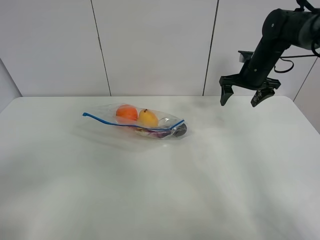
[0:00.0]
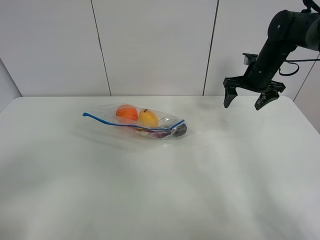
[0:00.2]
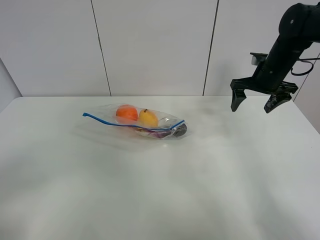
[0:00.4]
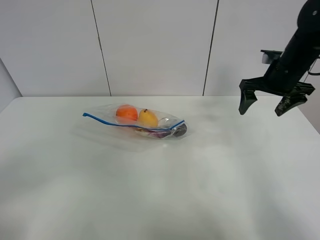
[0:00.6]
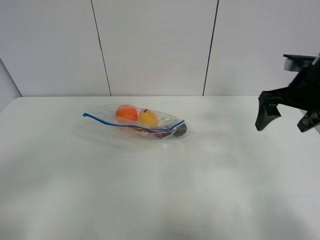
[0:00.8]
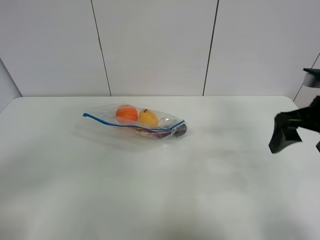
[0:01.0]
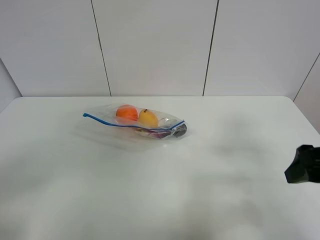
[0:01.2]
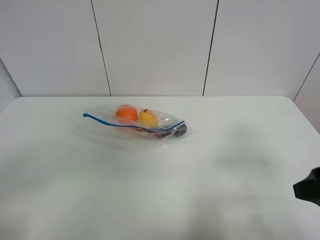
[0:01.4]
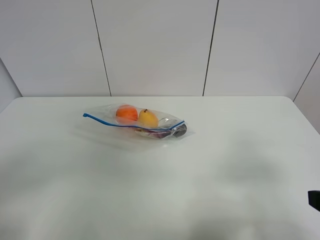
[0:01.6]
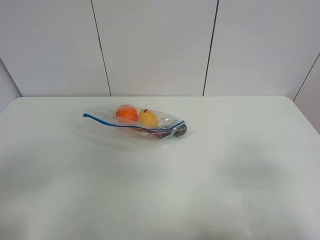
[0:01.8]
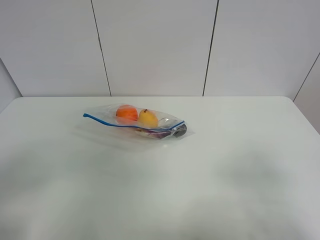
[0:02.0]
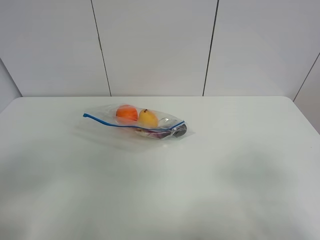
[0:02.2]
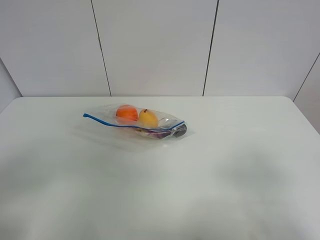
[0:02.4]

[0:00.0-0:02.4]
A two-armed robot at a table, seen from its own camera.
0.0 to 1.2 s: The right gripper travels backward by roughly 30 cm.
1.2 to 2.4 s: The right gripper is displaced backward by some 15 cm.

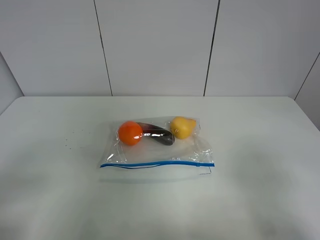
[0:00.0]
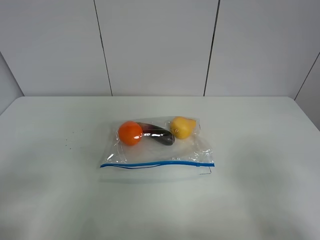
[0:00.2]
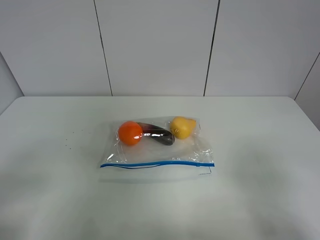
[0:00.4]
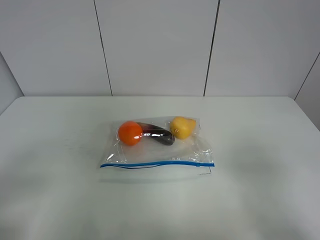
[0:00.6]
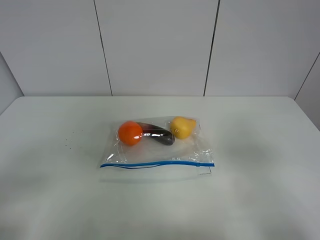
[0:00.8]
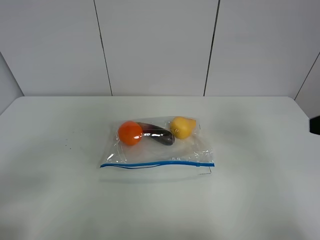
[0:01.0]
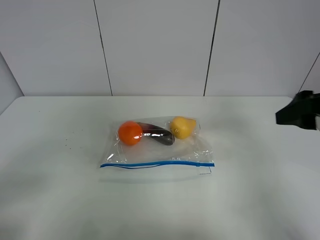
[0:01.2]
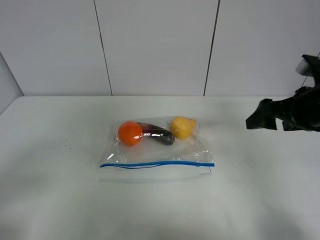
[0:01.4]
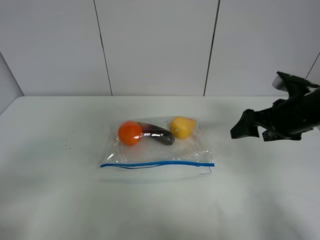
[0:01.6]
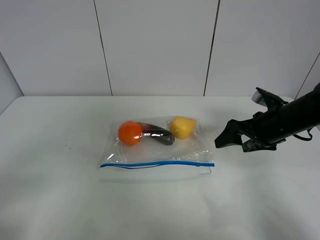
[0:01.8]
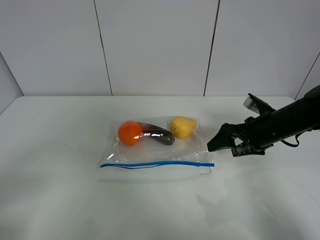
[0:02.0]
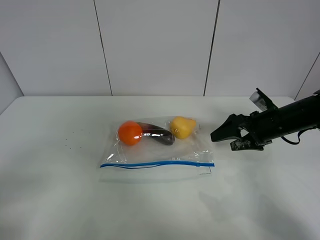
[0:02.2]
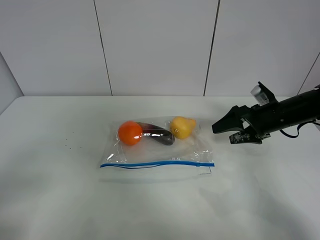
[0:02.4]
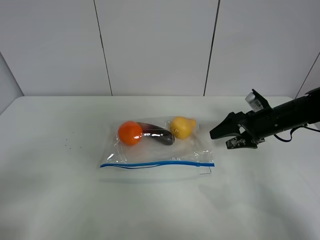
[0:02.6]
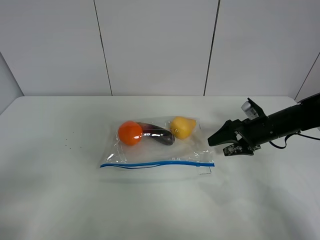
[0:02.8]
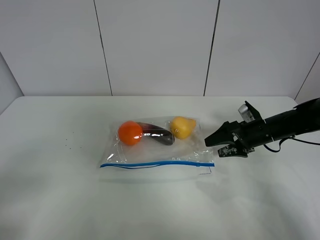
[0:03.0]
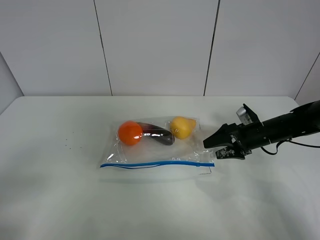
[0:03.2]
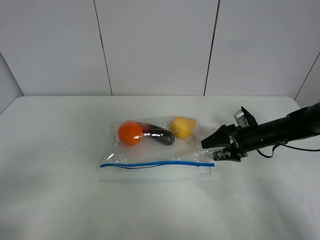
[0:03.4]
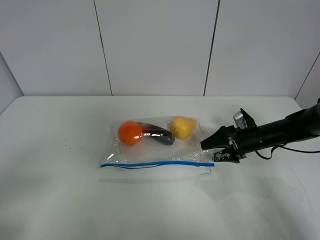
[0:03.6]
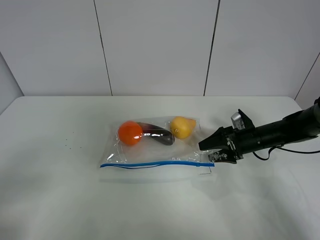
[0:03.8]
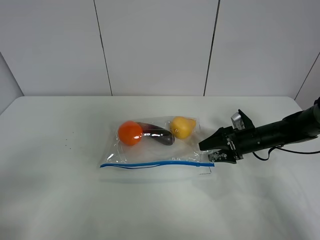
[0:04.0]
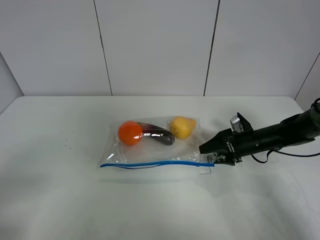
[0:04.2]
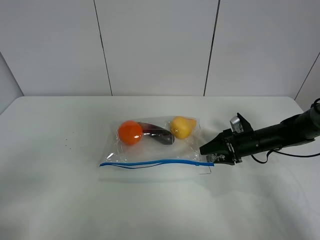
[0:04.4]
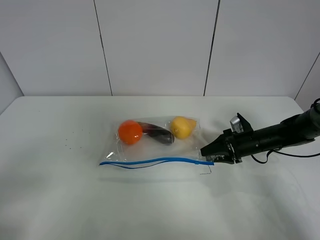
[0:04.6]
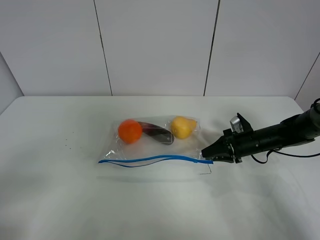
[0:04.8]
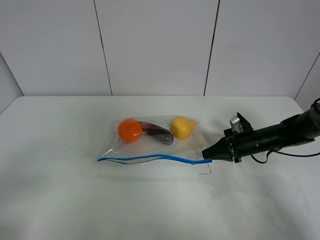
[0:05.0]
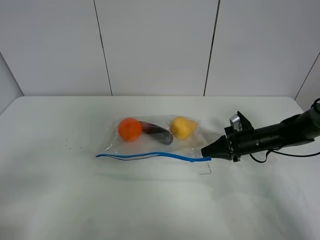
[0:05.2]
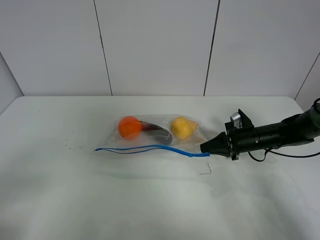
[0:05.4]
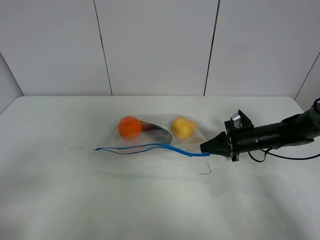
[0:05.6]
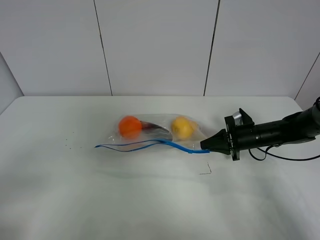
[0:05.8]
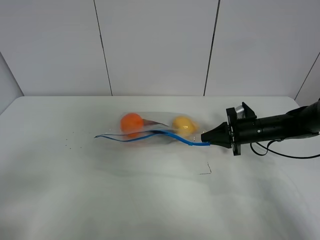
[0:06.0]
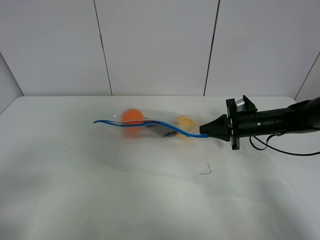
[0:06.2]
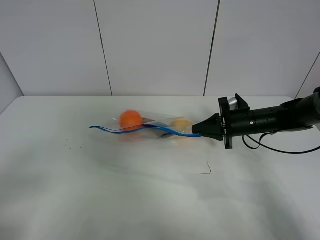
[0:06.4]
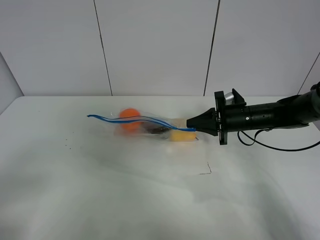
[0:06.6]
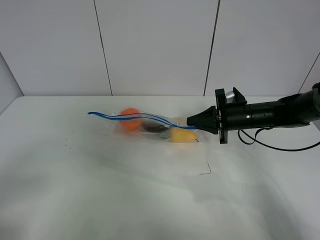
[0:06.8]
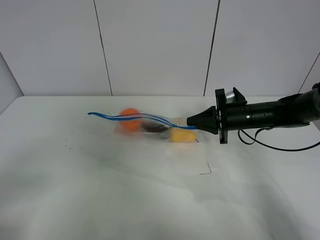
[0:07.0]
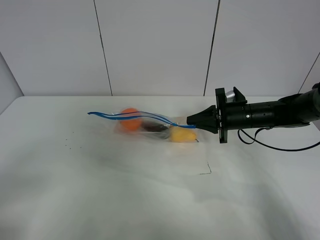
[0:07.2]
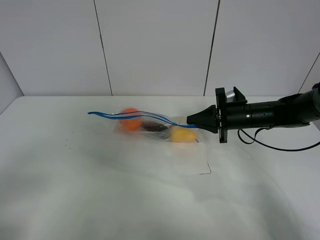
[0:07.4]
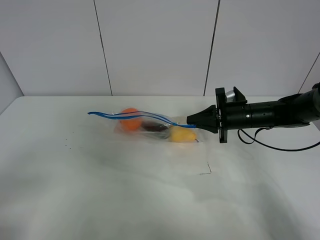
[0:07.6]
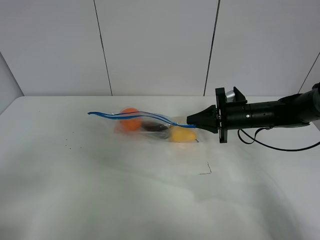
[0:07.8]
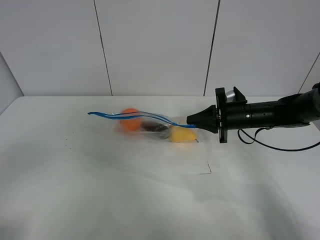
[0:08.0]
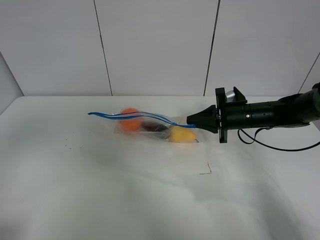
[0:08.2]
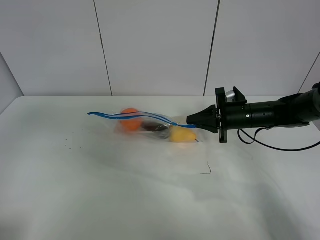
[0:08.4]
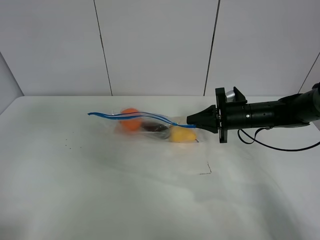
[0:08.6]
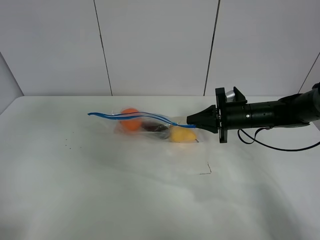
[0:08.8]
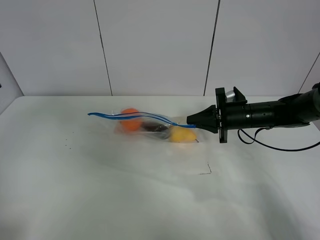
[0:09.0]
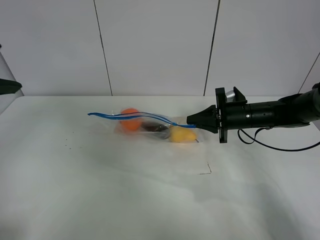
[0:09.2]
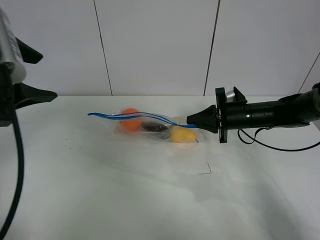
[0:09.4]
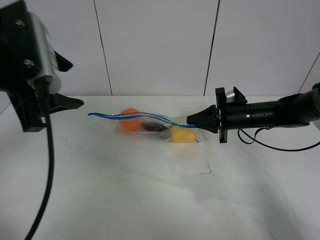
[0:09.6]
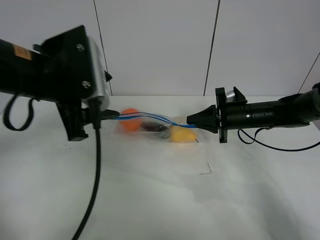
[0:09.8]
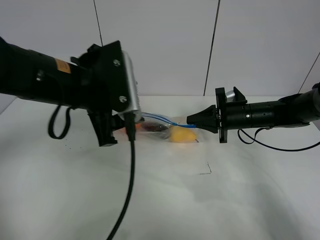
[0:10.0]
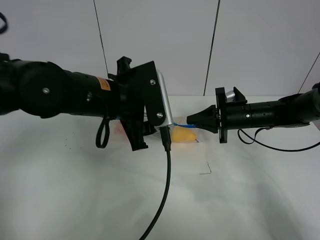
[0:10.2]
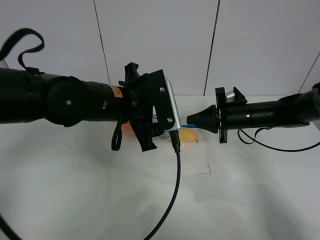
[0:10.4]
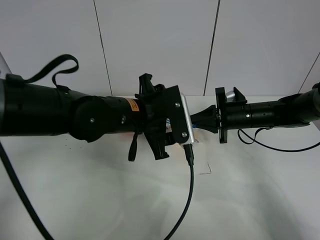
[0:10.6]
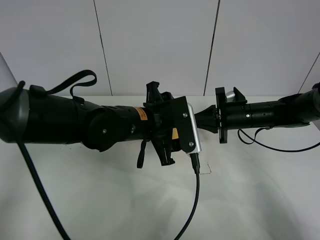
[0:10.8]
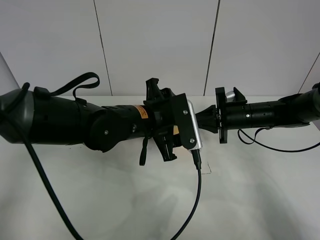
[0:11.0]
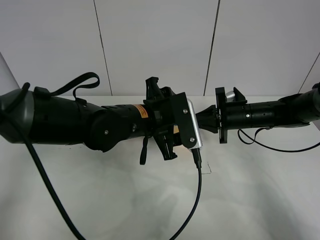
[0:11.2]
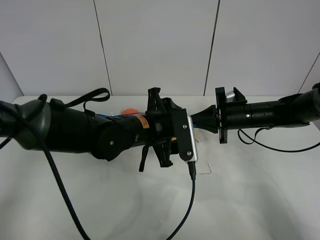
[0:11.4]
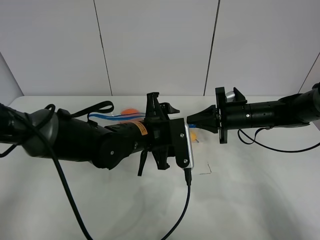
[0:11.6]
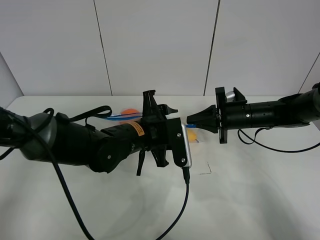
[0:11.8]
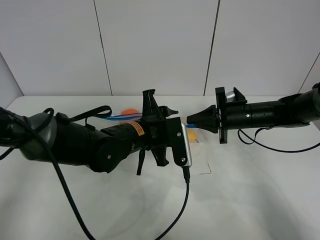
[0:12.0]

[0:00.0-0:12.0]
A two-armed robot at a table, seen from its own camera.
Step, 0.0 to 4.8 s: Grasp the fruit bag with right gripper.
Step, 5.0 to 6.8 s: Lift the fruit bag with your right gripper.
0.0 to 1.6 s: The right gripper shifts approximately 25 cm forward.
1.6 to 3.0 s: The right gripper shifts about 15 cm downward and forward.
3.0 to 4.4 s: The grippers stay close to where they were, moving slightly.
4.4 to 6.0 s: The right gripper closes.
6.0 to 7.6 s: The right gripper moves about 5 cm.
7.6 to 9.0 s: The left gripper is displaced forward and upward by about 20 cm.
9.0 to 10.4 s: The left gripper shifts roughly 25 cm to the right and downward.
10.4 to 12.0 s: The left gripper goes roughly 10 cm downward, and closes up.

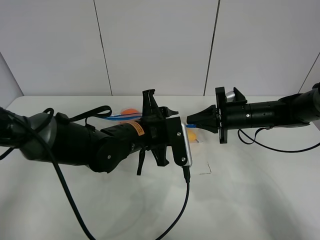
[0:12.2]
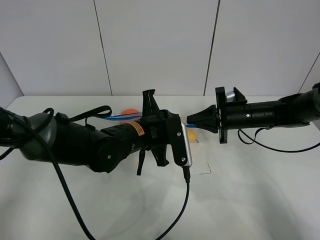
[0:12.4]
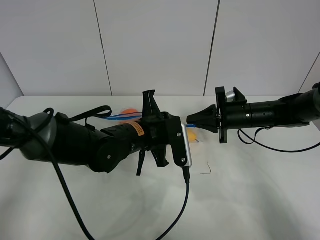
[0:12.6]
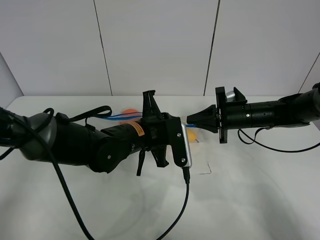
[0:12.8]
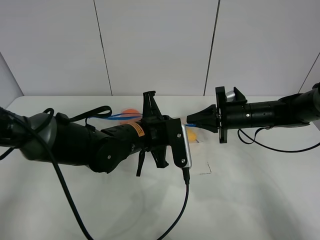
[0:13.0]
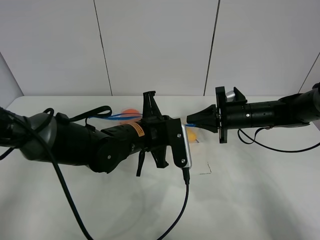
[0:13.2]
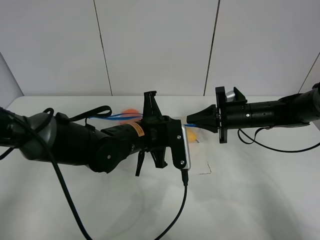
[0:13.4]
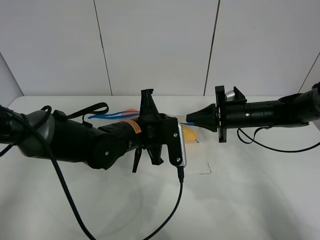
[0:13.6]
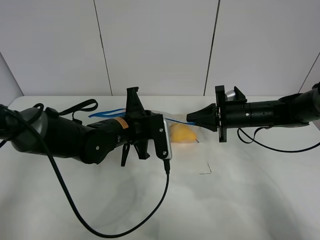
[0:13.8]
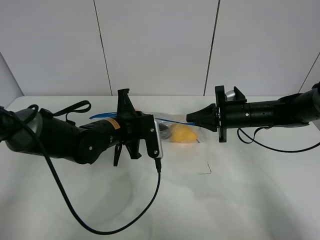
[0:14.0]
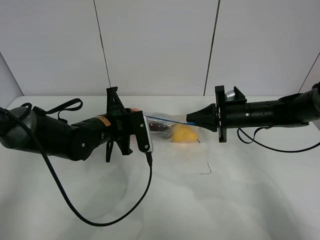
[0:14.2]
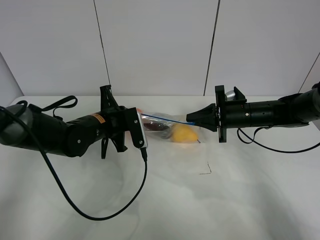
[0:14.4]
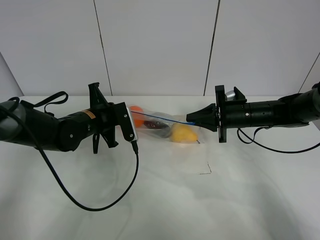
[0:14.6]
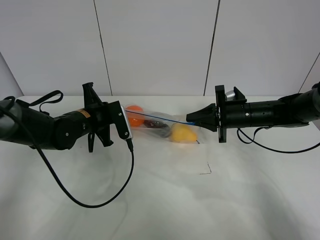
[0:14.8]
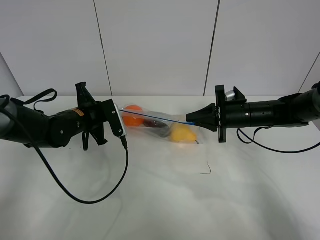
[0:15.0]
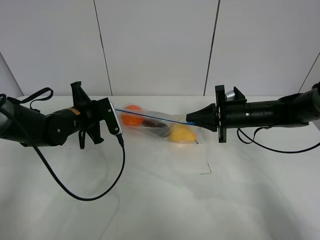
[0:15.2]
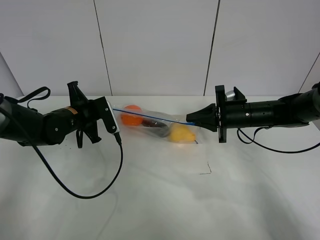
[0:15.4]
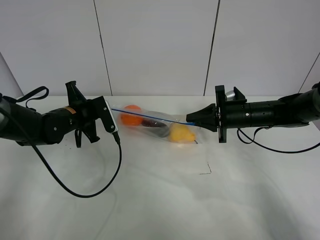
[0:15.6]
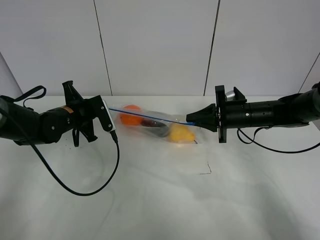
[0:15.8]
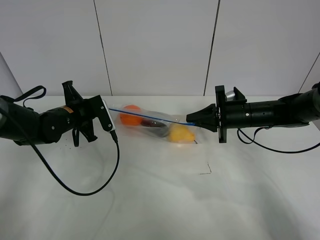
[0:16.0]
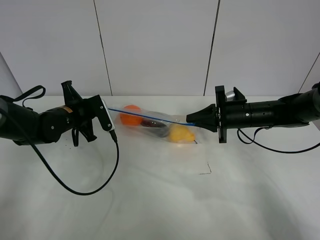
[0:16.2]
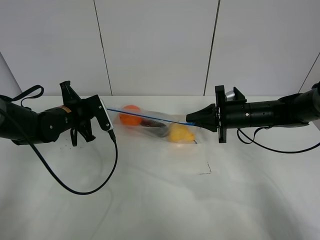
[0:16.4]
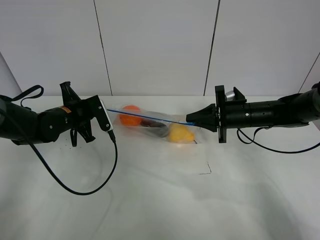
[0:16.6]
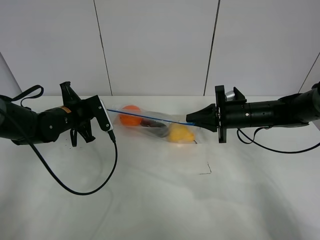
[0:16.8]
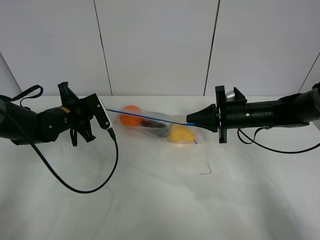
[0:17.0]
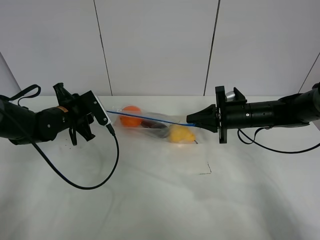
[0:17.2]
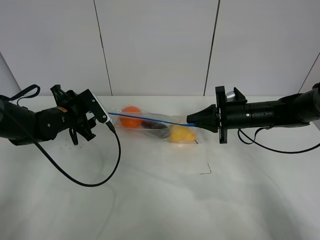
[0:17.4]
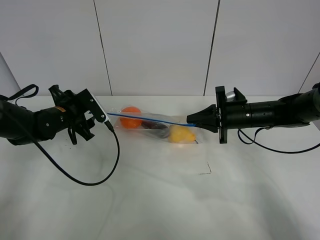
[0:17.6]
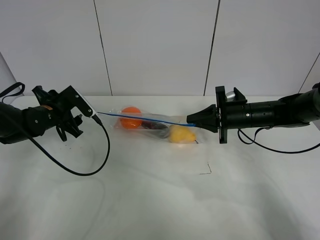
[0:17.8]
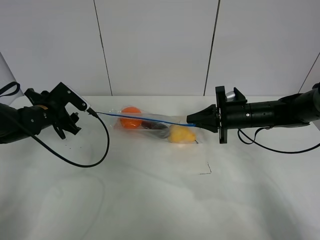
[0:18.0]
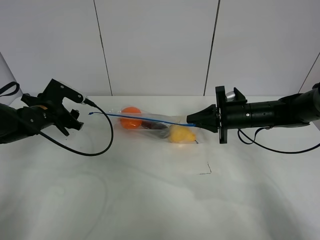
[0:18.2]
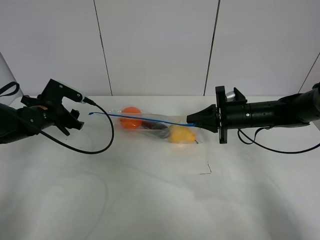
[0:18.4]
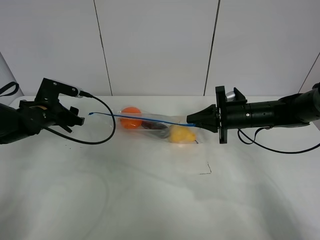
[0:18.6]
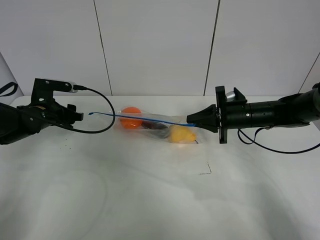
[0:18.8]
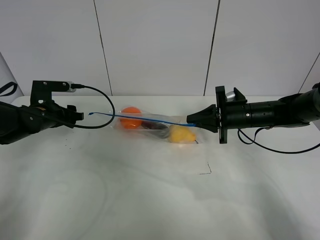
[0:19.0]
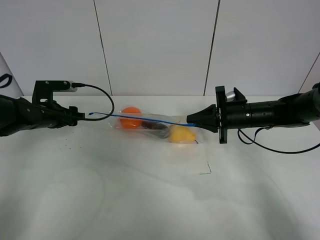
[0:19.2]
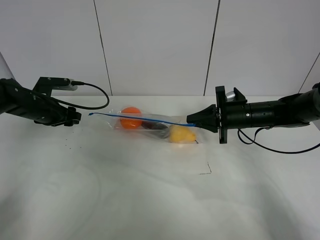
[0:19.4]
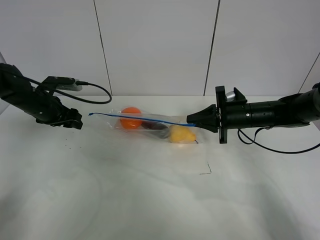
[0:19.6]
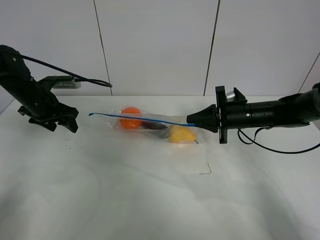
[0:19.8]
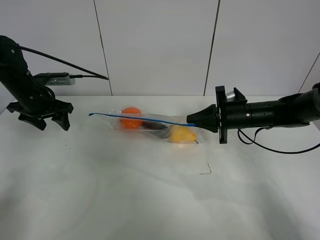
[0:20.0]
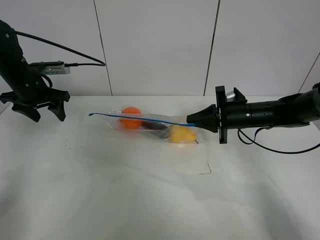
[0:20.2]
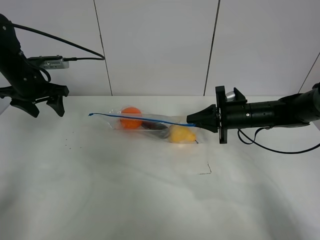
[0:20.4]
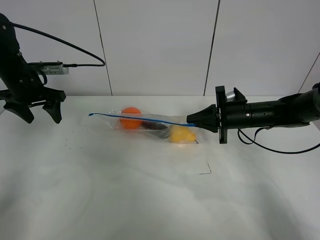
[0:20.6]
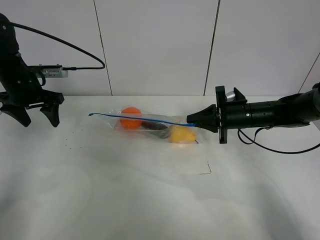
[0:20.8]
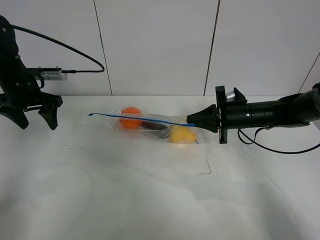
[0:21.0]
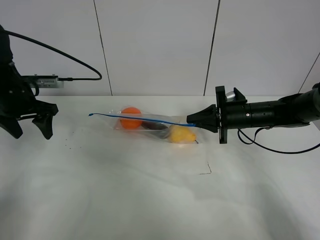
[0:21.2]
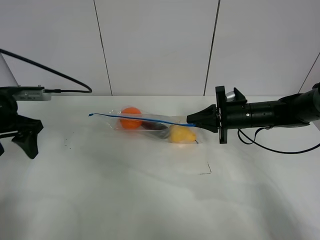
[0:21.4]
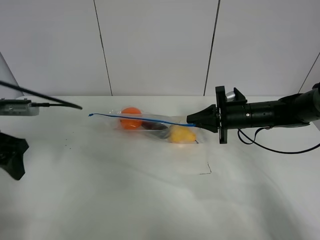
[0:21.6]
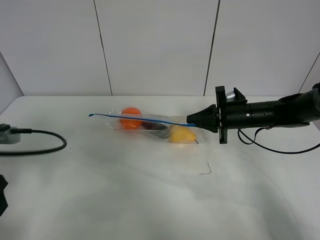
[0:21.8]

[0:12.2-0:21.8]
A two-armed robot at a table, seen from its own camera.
Step, 12.2 to 17.2 s: Pull the fruit bag with left gripper.
12.2 to 13.8 s: The left gripper ends up some 5 cm from where it was, and closes its fingers.
13.8 to 15.4 s: The left gripper goes approximately 15 cm to the left and forward.
15.4 to 17.0 s: There are only small adjustments of the grippers.
17.0 to 18.6 s: The left gripper moves to the left, some 5 cm, and opens up.
18.6 to 20.2 s: The left gripper travels upward by approximately 10 cm.
20.2 to 21.8 s: The left gripper shifts some 25 cm backward.
